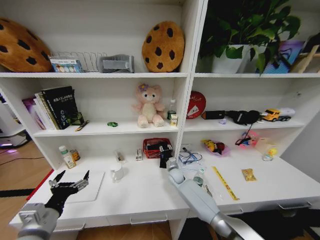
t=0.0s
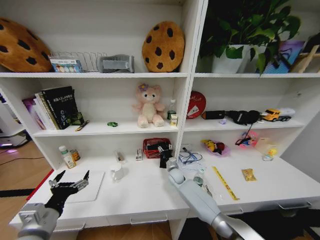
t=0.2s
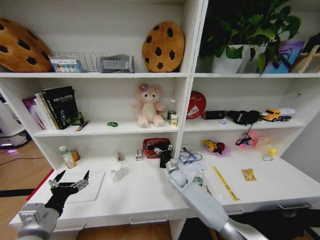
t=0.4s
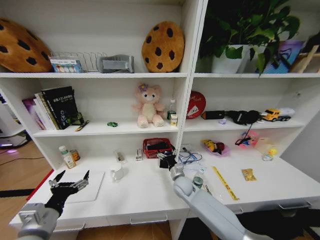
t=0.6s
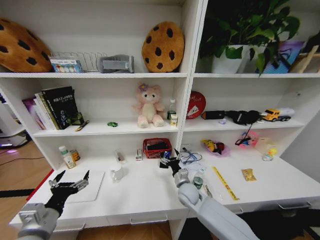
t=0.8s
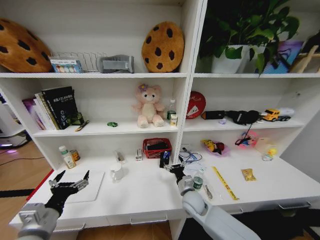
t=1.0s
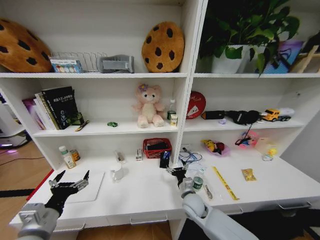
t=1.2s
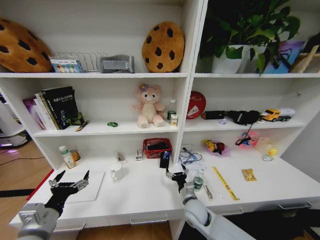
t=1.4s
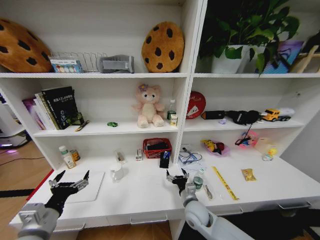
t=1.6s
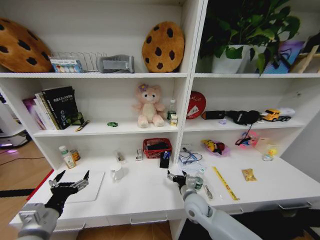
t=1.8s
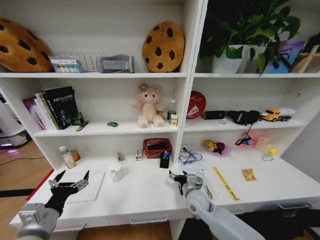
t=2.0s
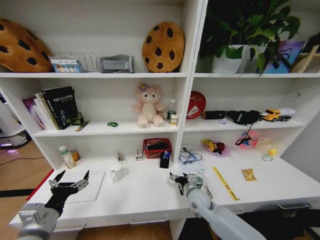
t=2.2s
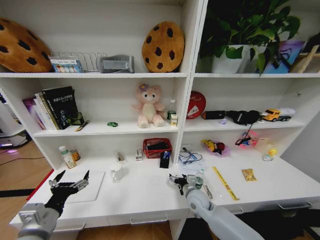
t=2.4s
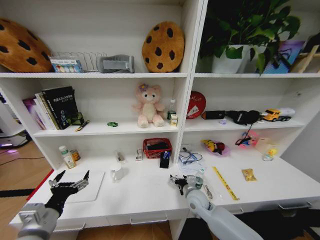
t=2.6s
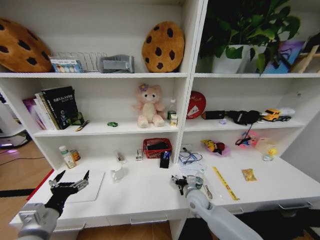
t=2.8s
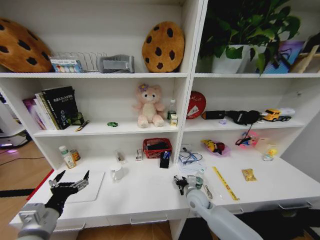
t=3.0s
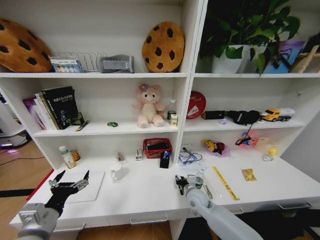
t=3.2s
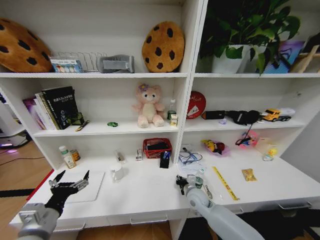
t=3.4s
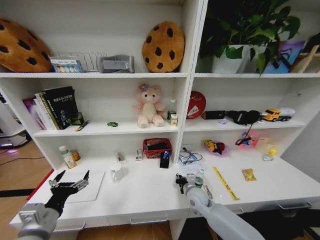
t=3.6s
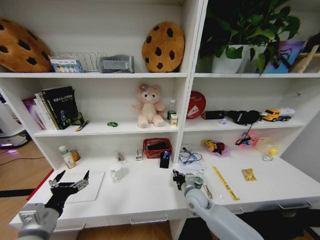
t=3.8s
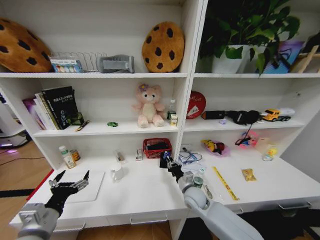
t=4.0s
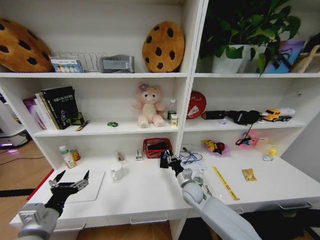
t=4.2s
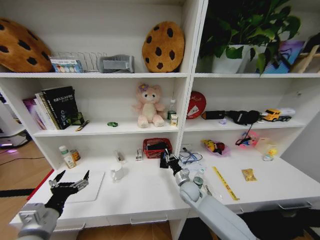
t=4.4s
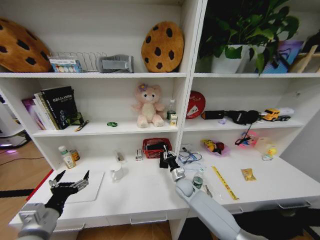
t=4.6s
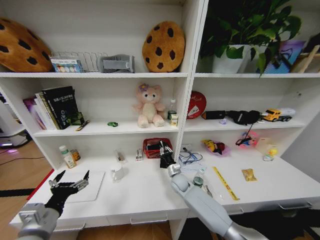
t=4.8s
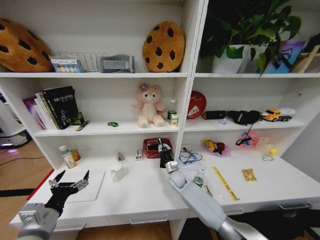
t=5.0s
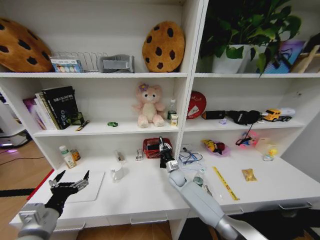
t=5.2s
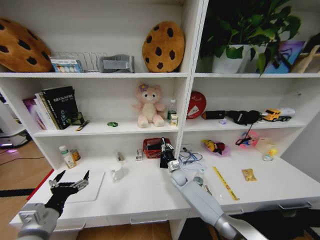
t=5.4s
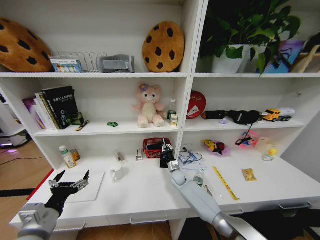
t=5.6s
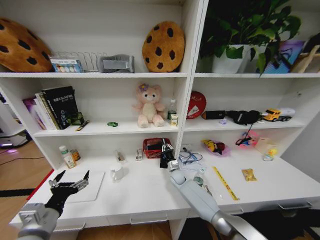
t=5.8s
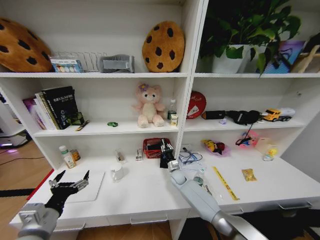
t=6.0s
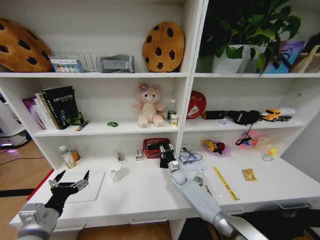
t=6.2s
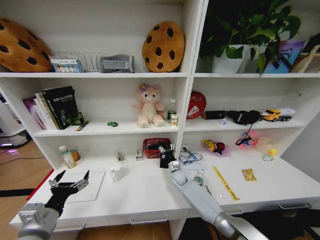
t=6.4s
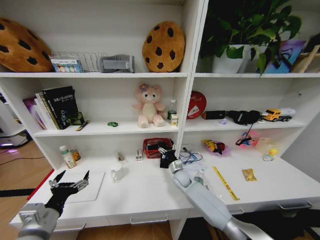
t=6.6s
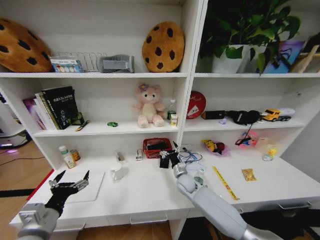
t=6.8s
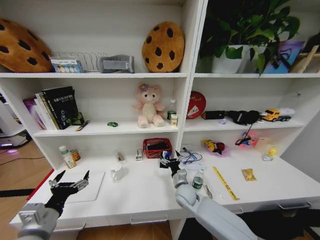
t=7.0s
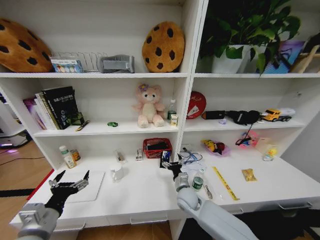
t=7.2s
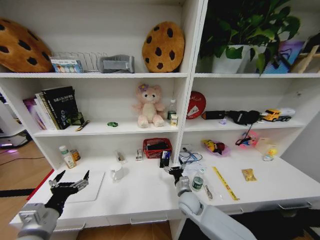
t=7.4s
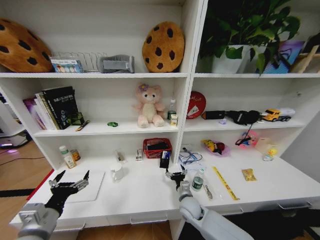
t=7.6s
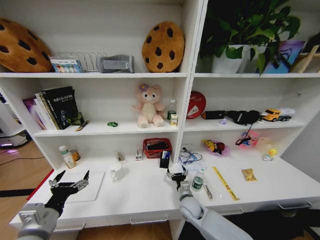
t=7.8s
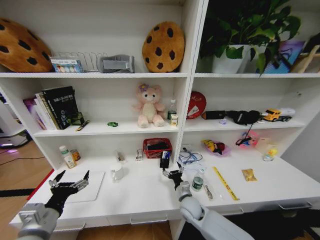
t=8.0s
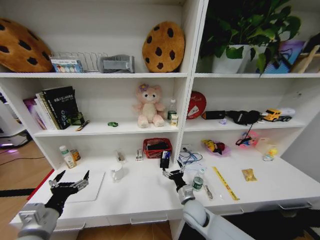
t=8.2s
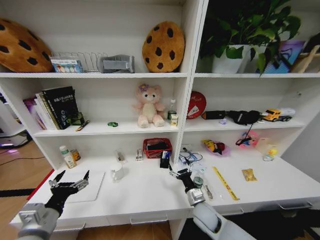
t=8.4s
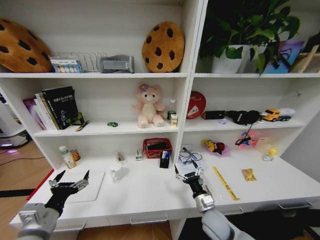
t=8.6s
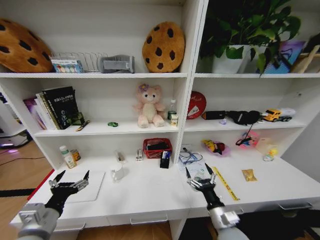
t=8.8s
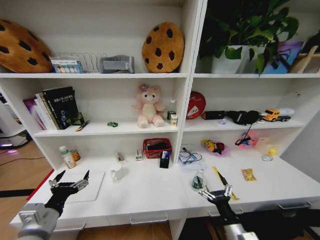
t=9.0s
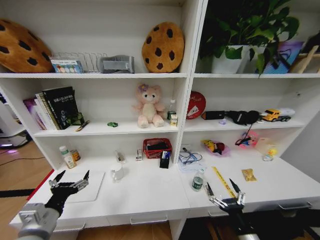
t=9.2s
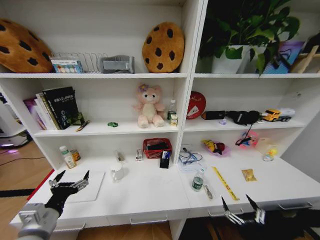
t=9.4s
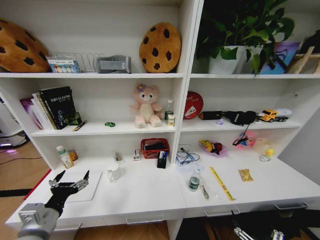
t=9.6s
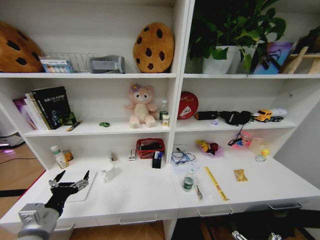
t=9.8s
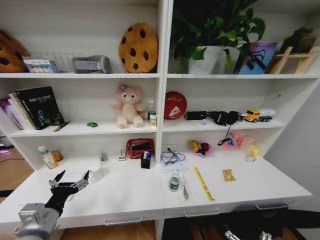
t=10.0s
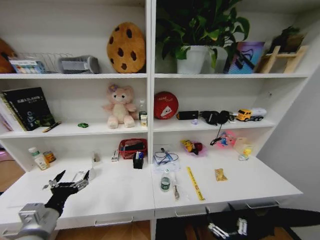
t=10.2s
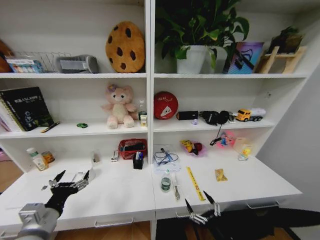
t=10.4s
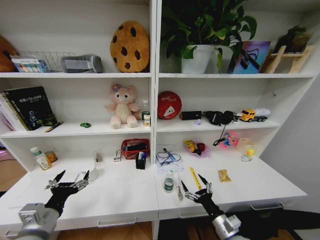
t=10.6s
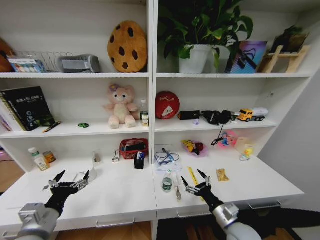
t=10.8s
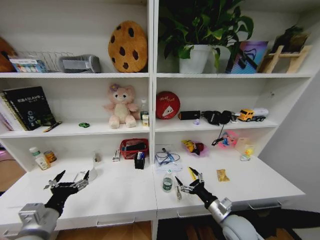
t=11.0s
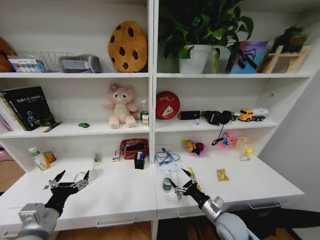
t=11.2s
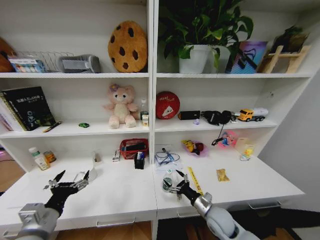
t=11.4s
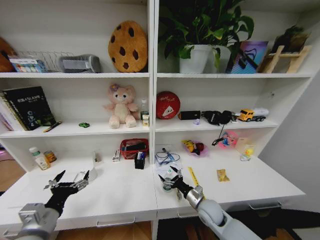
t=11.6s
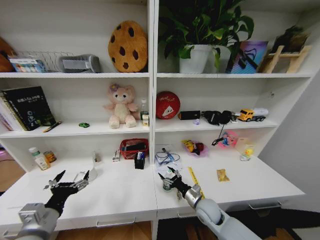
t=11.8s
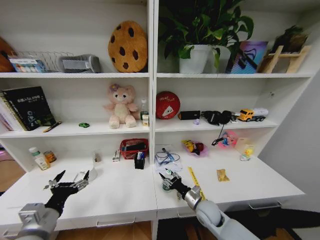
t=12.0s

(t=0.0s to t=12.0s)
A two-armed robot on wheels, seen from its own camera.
Task of the whole recording: Organize the objects on the table.
t=0.0s - t=1.6s: The right gripper shifts some 20 cm backward, and opens up.
t=1.6s - t=3.0s: The right gripper is displaced forward by some 5 cm, and closes up.
t=3.0s - t=4.4s: The right gripper closes up.
t=4.4s - t=6.0s: The right gripper is displaced forward by some 10 cm.
t=6.0s - t=7.6s: The right gripper is displaced backward by approximately 15 cm, and opens its fingers.
t=7.6s - t=9.0s: The right gripper heads backward and to the right, covering some 20 cm.
t=9.0s - t=10.4s: The right gripper travels backward by about 5 cm.
t=10.4s - t=12.0s: The right gripper heads forward, covering roughly 20 cm, and closes up.

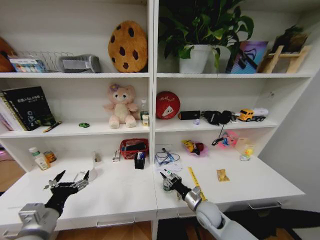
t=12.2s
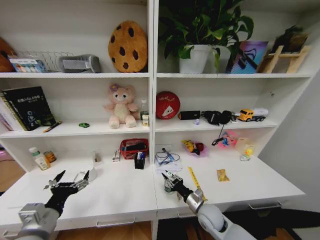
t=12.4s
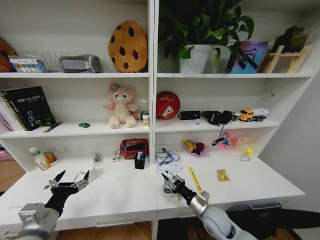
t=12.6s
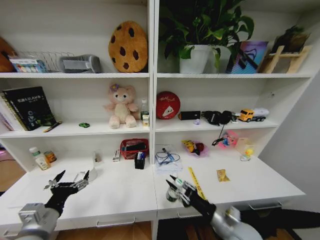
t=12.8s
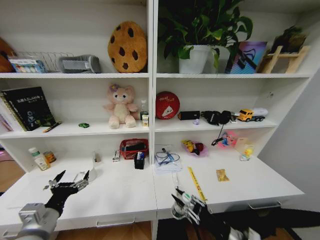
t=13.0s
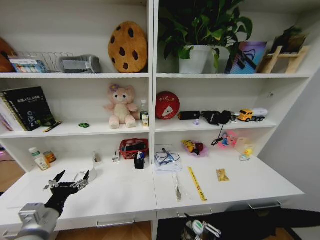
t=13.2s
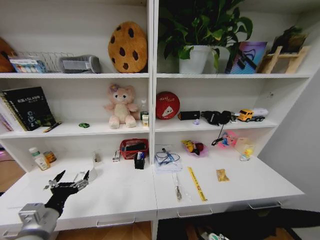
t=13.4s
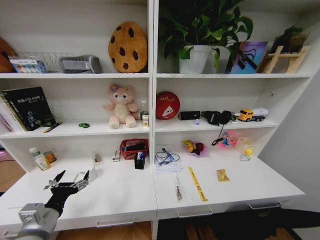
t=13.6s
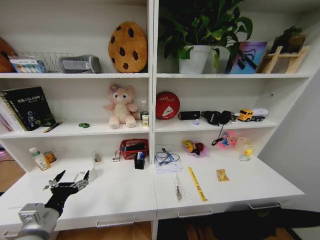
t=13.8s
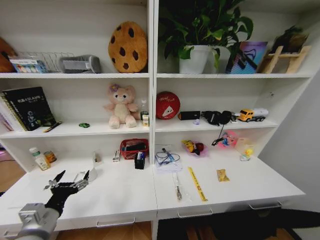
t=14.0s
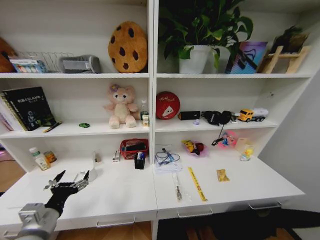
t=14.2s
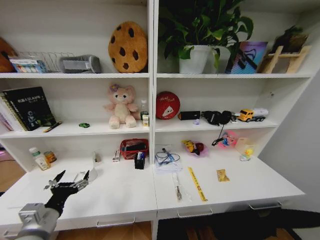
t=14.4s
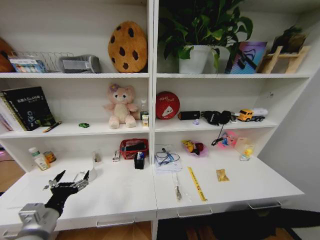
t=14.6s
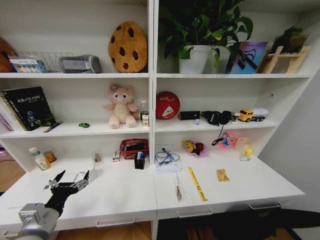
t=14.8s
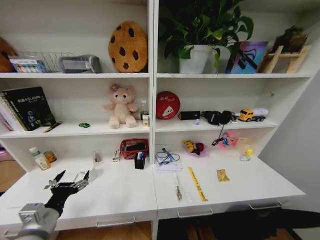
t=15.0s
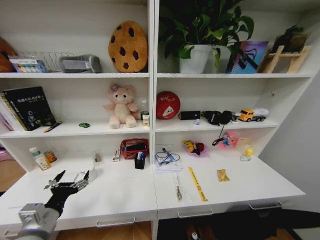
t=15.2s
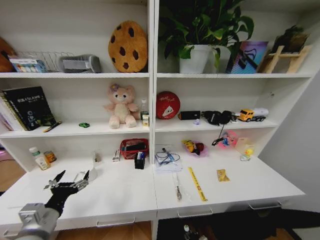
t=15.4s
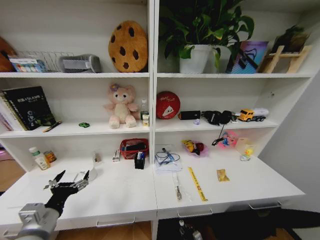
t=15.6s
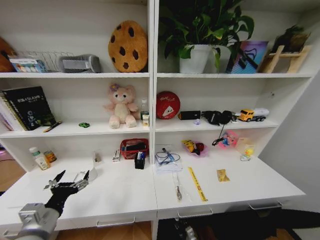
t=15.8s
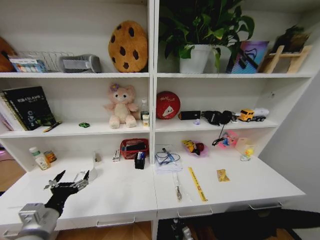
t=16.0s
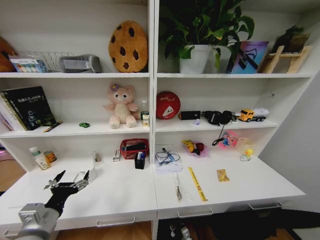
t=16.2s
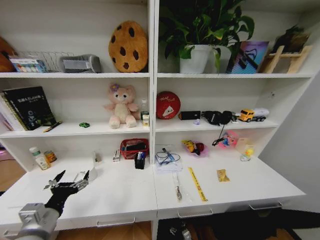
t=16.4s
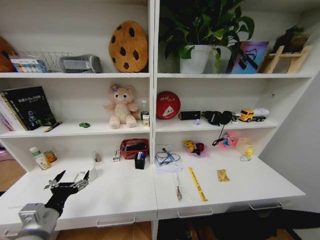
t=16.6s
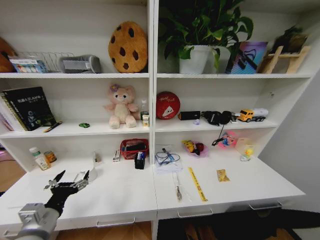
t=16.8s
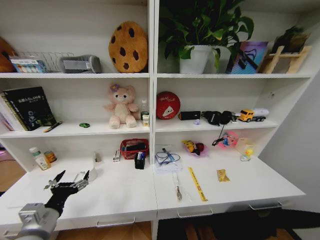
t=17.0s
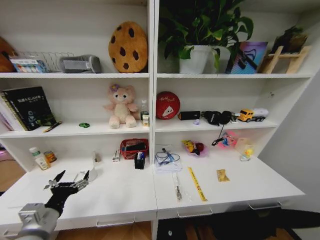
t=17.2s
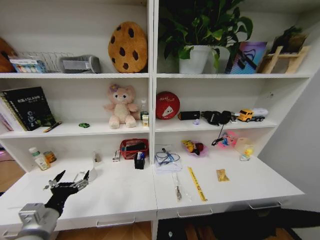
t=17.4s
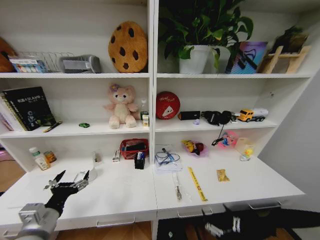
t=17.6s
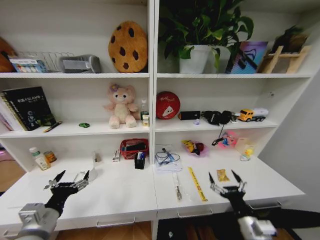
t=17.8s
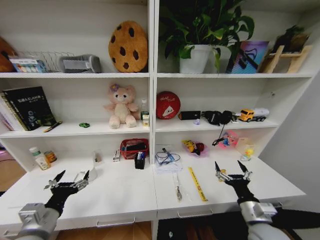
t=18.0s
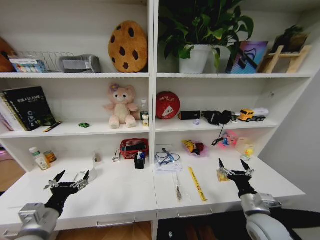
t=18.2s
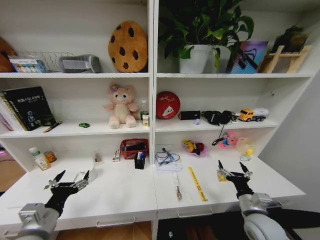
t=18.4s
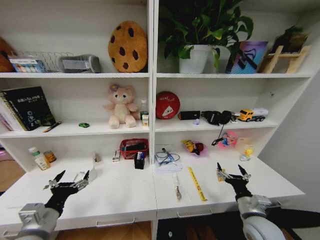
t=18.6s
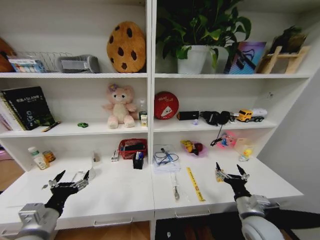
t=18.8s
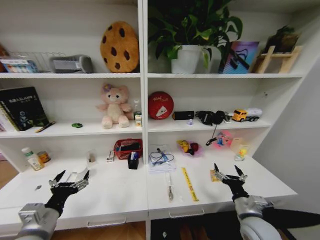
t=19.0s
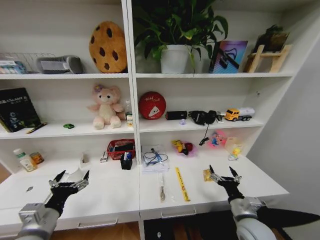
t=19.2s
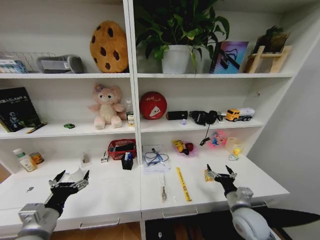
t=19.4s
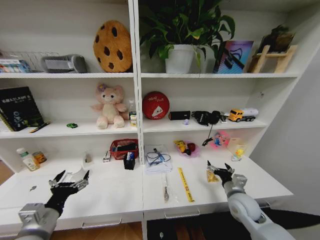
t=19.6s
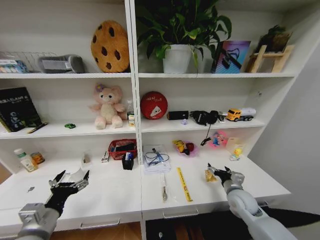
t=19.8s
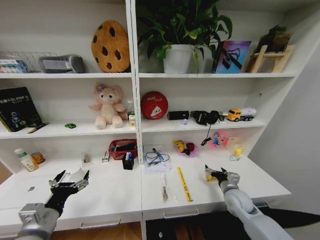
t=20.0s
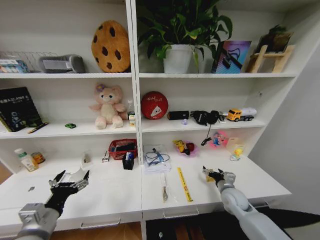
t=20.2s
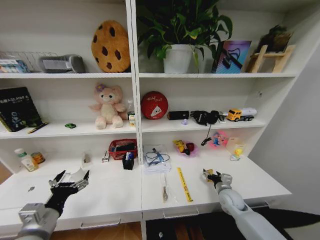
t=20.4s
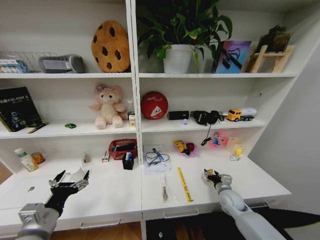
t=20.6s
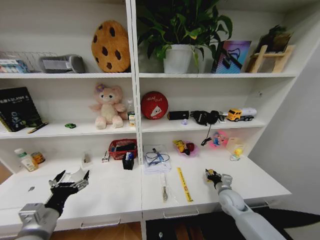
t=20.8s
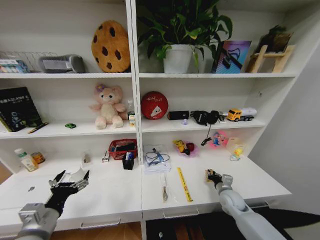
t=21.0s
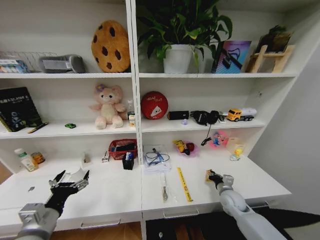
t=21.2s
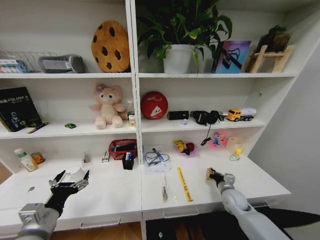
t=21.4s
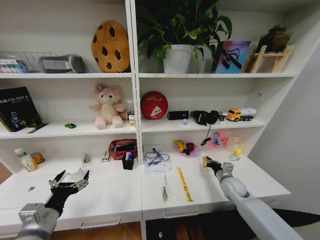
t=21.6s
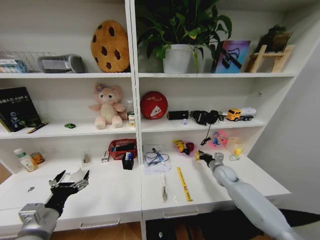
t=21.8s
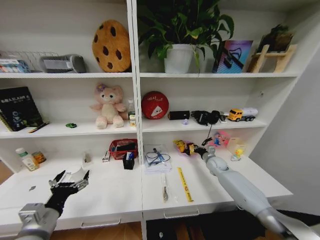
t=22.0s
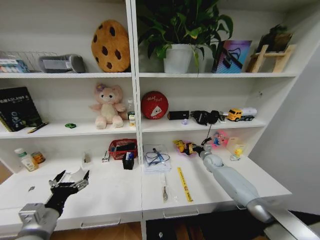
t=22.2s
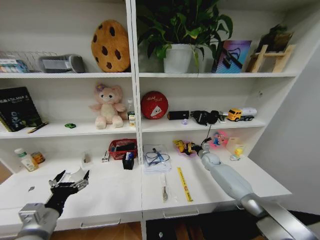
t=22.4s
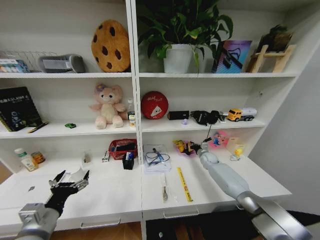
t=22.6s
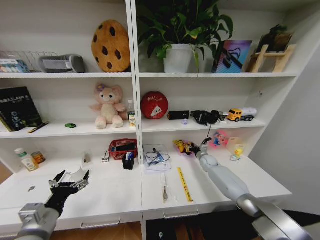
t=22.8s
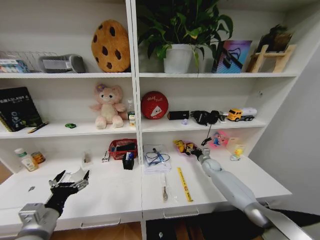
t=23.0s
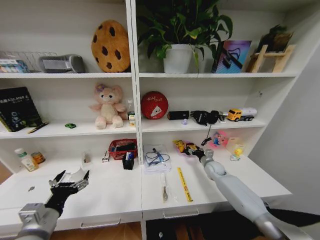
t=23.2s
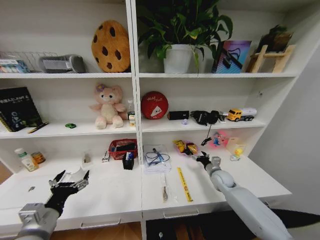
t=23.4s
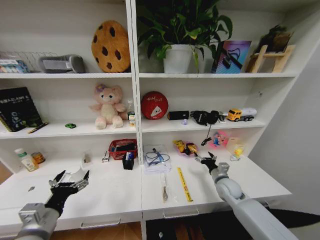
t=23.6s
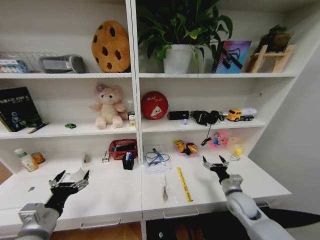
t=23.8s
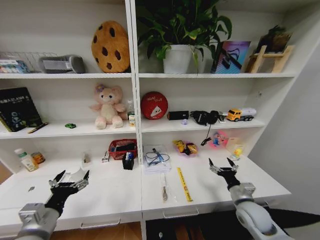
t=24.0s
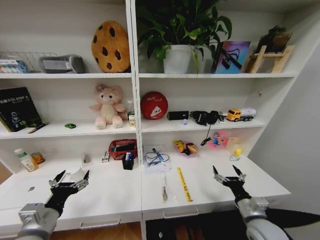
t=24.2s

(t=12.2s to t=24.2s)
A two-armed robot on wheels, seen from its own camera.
Task of the whole recording: Organize the objects on the table.
t=12.2s - t=13.8s: The right gripper travels backward and to the right by some 40 cm.
t=13.8s - t=15.2s: The right gripper goes about 25 cm downward and forward.
t=16.6s - t=18.2s: The right gripper travels upward by approximately 40 cm.
t=18.2s - t=19.8s: The right gripper shifts some 10 cm forward.
t=19.8s - t=21.2s: The right gripper travels downward by some 5 cm, and closes.
t=21.2s - t=22.6s: The right gripper travels forward by roughly 25 cm.
t=22.6s - t=24.2s: The right gripper goes some 35 cm backward, and opens up.
